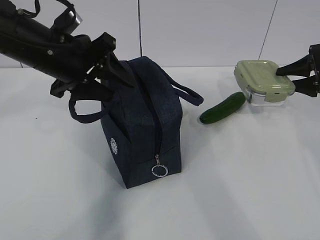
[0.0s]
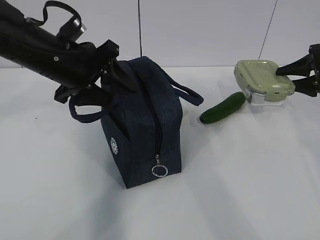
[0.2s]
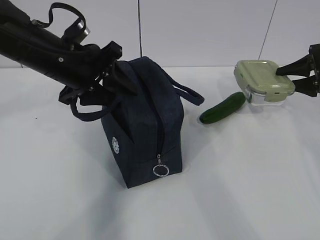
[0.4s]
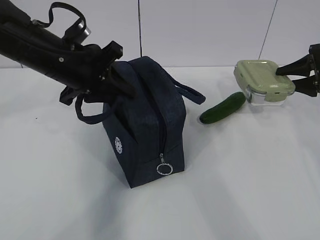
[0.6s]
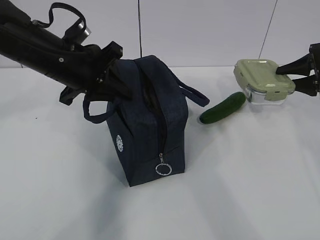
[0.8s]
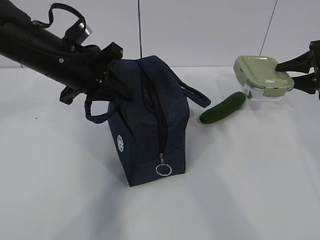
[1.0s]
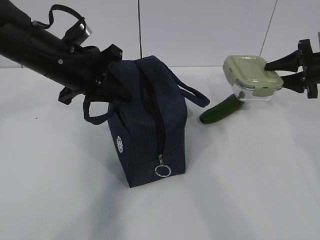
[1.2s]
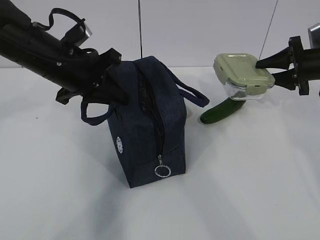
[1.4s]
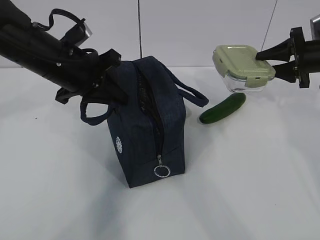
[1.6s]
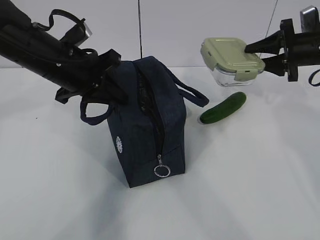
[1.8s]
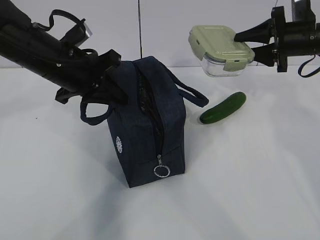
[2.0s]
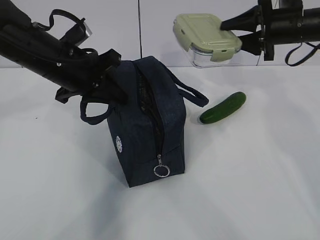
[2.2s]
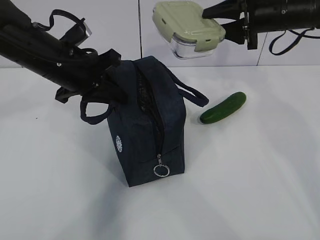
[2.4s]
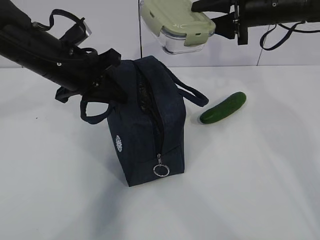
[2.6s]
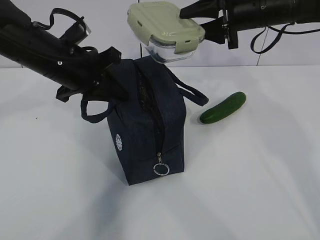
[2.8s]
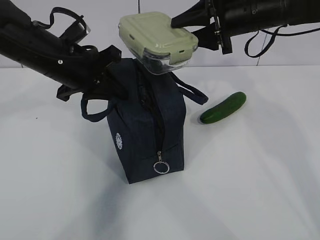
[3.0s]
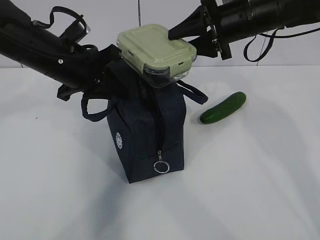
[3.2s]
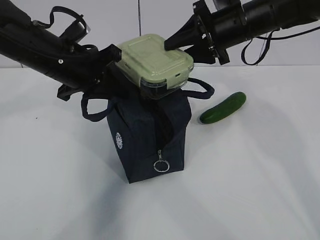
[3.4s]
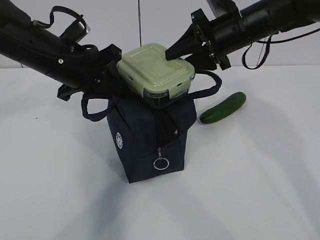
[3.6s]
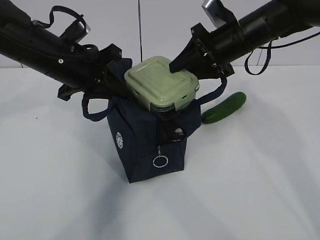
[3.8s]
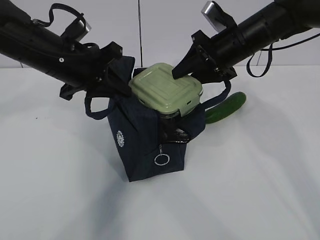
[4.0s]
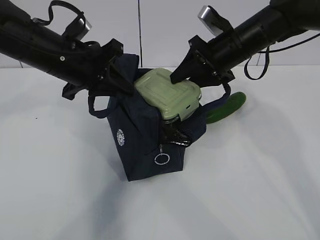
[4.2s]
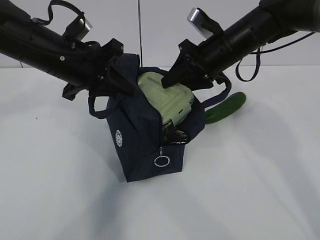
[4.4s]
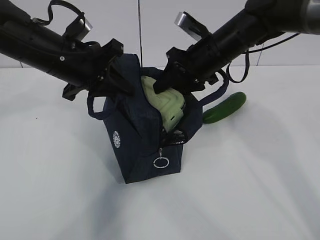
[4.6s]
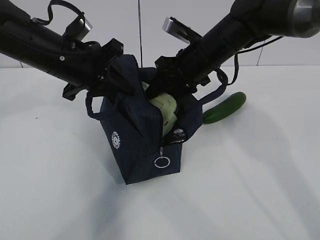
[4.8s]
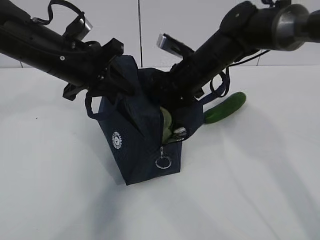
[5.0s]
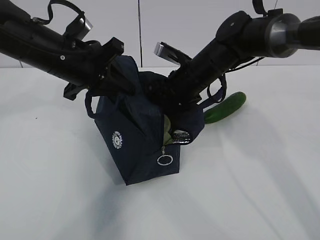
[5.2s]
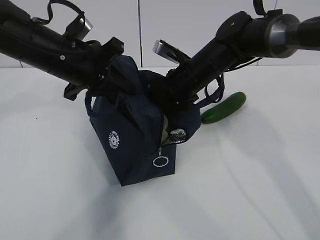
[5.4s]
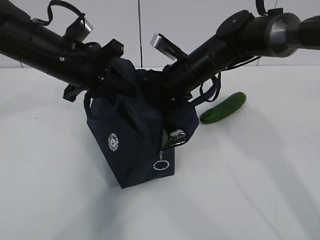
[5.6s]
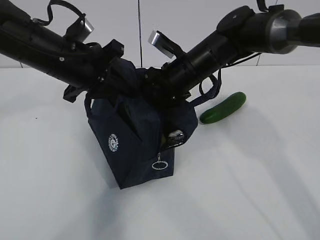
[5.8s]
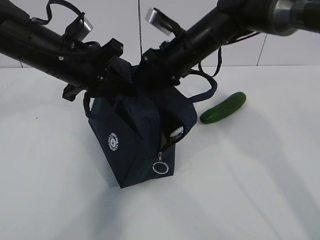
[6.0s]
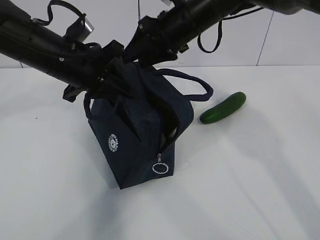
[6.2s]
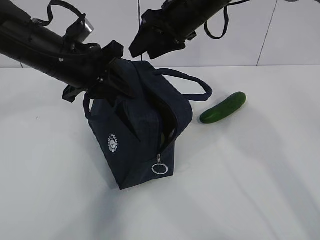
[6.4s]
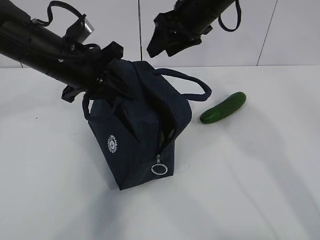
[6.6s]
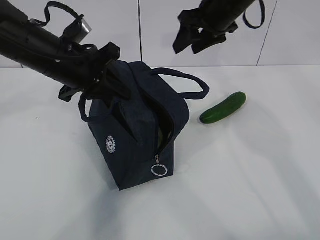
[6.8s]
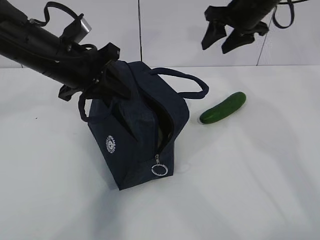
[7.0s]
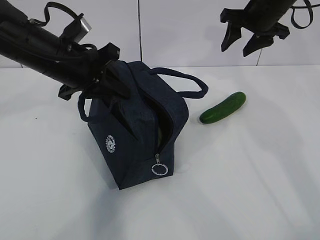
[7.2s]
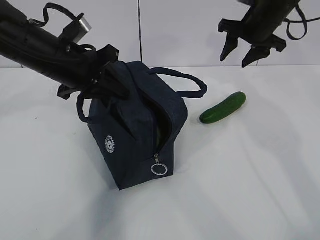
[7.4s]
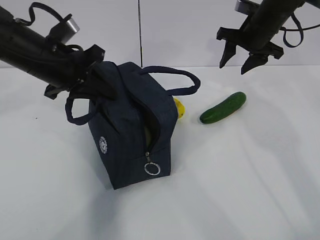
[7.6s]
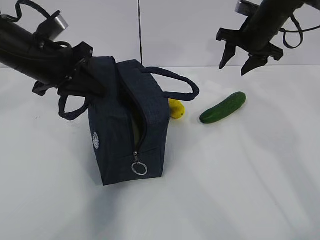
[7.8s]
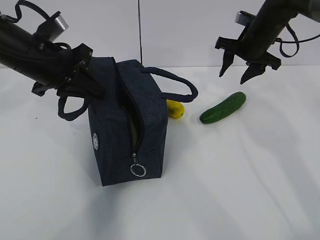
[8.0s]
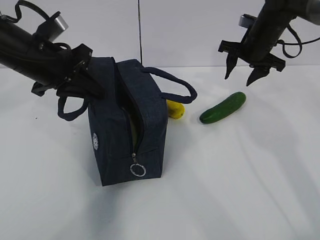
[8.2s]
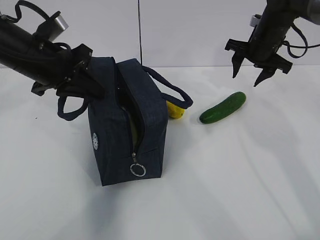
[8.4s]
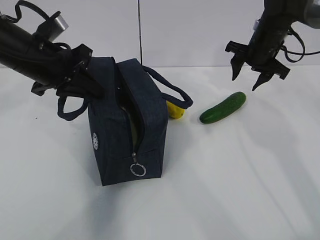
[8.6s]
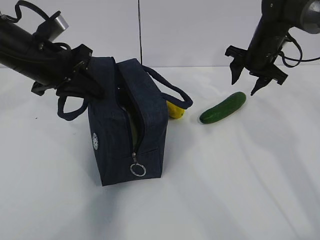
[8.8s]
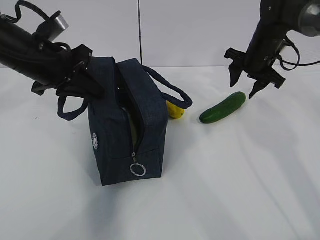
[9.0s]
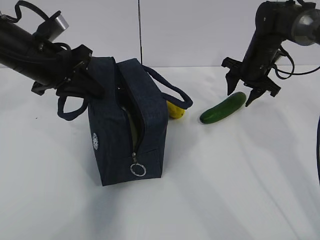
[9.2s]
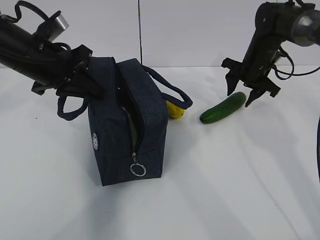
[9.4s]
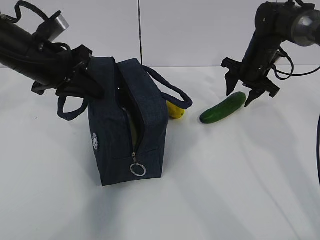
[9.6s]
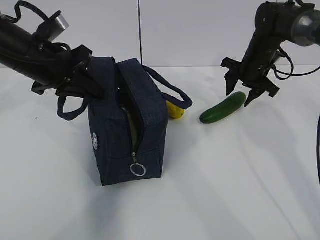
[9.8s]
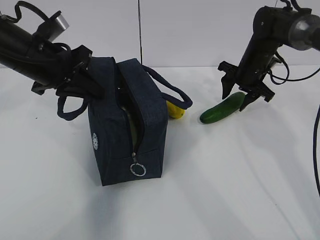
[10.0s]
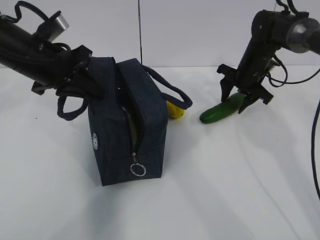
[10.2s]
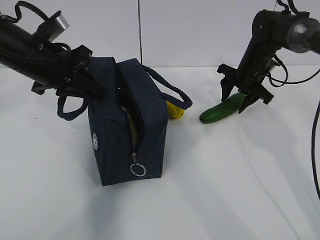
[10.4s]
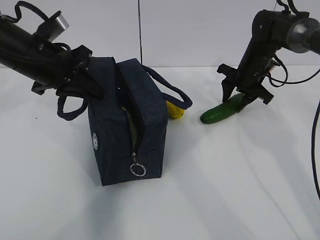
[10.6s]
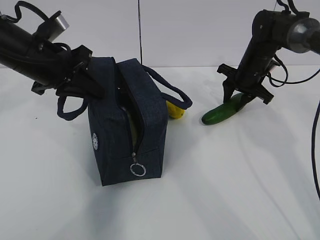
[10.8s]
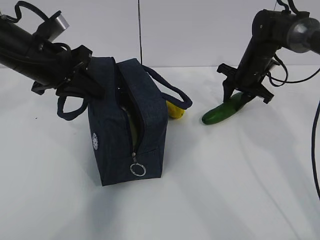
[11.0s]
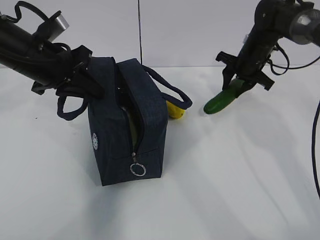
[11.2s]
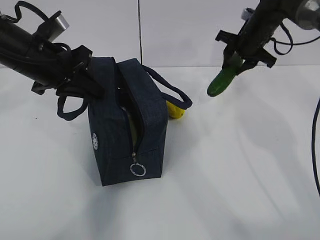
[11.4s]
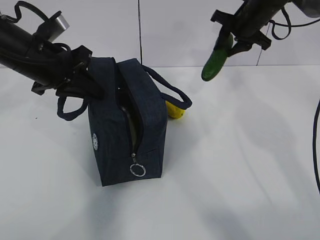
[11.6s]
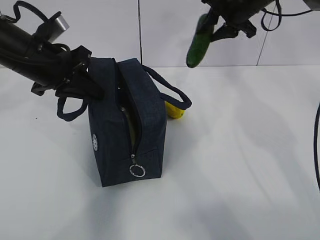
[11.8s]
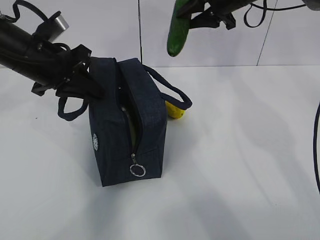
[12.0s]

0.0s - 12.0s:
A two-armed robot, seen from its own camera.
Step, 0.8s - 4.8s: Grab the cucumber with your right hand.
Step, 5.0s - 9.4s: Place it into the bag with your right hand.
0.0s - 1.6s: The left gripper closes up. The right gripper goes approximately 5 cm to the left.
1.6s - 3.0s: The right gripper travels to the left and upward by roughly 20 cm.
3.0s - 4.4s: The right gripper changes place by approximately 5 cm.
4.4s - 6.0s: The right gripper travels to the left by about 5 cm.
6.0s - 7.6s: The right gripper travels to the right and forward by some 15 cm.
7.6s - 9.0s: The right gripper heads downward, covering approximately 5 cm.
9.0s - 10.4s: There are only small adjustments of the grippers.
10.4s - 12.0s: The right gripper travels upward by some 15 cm.

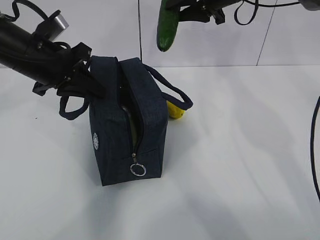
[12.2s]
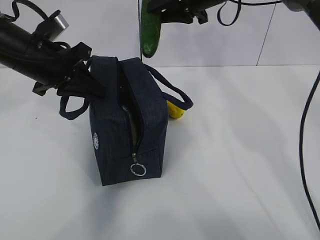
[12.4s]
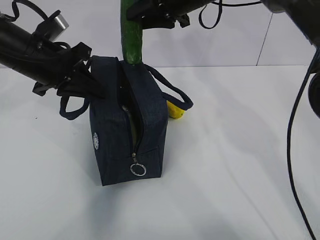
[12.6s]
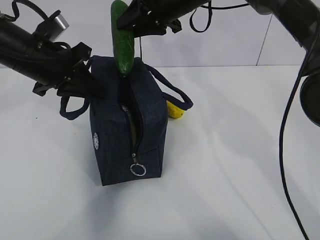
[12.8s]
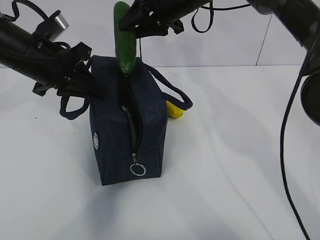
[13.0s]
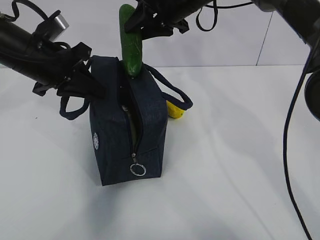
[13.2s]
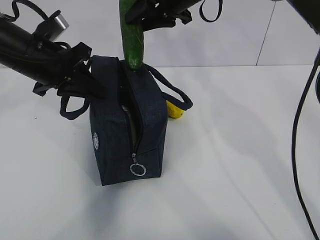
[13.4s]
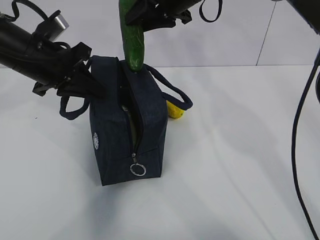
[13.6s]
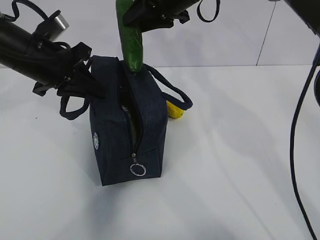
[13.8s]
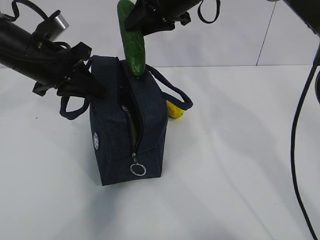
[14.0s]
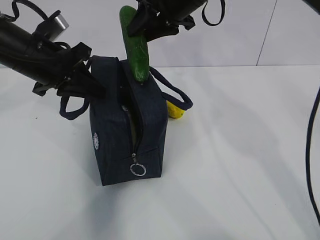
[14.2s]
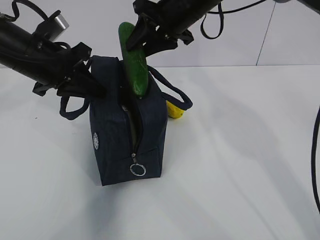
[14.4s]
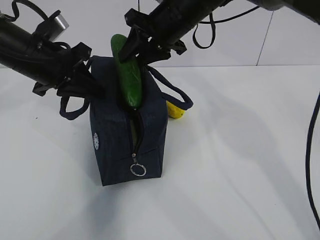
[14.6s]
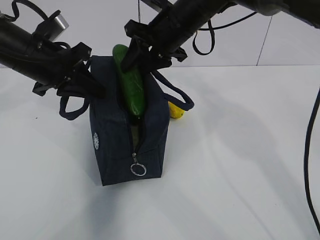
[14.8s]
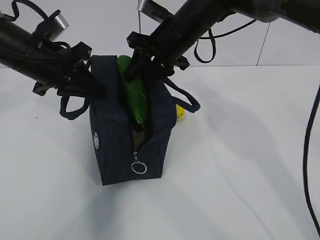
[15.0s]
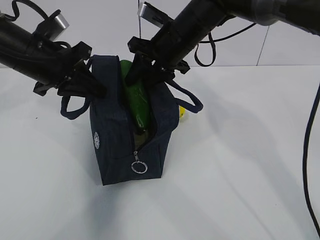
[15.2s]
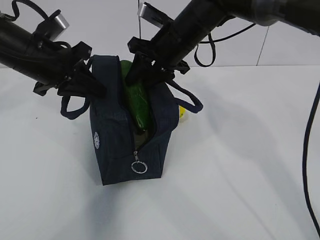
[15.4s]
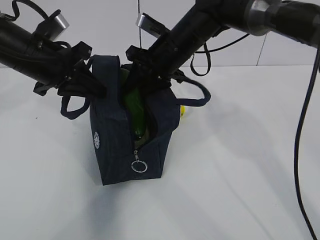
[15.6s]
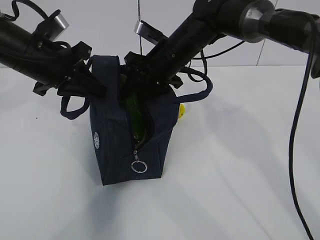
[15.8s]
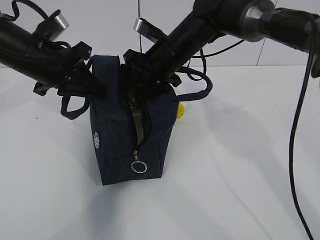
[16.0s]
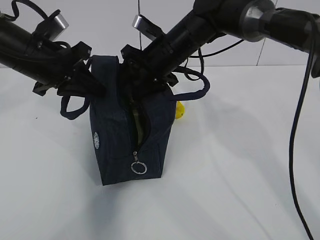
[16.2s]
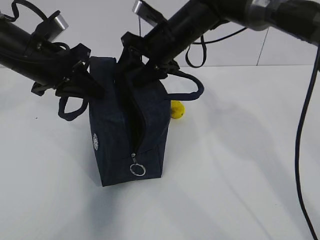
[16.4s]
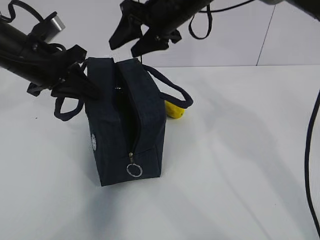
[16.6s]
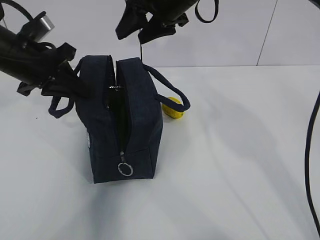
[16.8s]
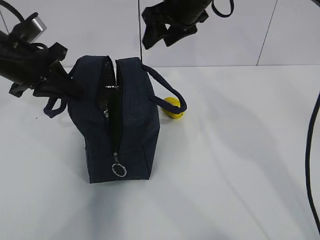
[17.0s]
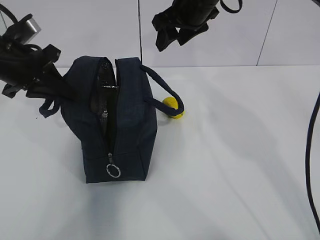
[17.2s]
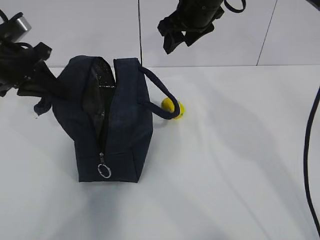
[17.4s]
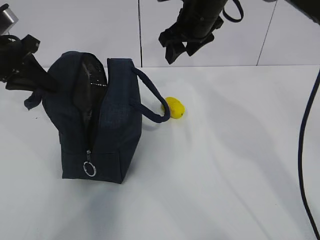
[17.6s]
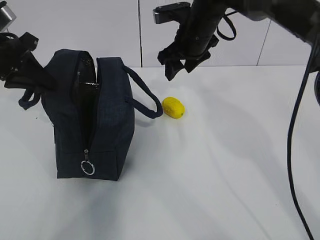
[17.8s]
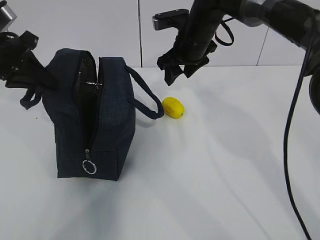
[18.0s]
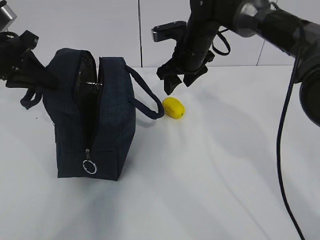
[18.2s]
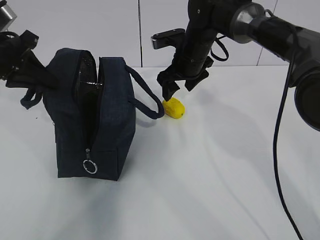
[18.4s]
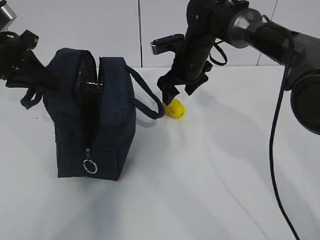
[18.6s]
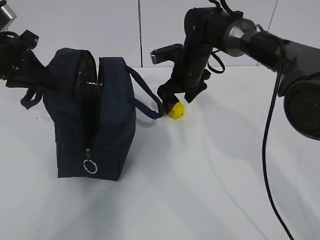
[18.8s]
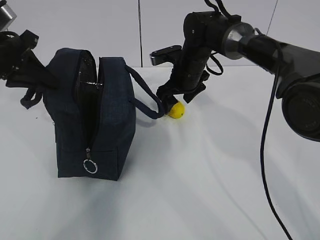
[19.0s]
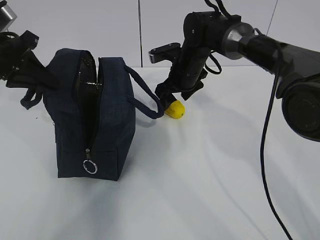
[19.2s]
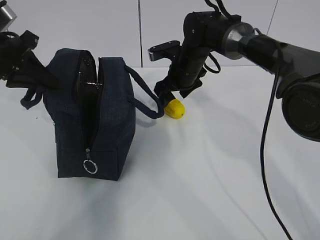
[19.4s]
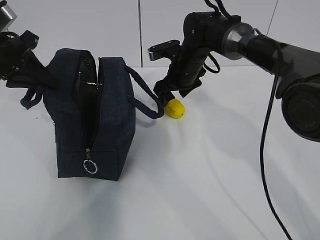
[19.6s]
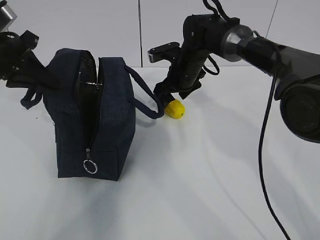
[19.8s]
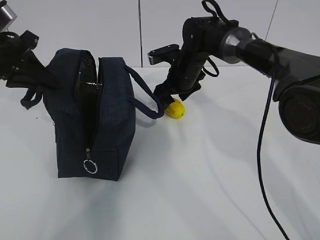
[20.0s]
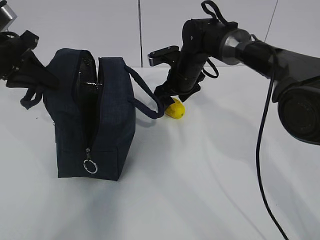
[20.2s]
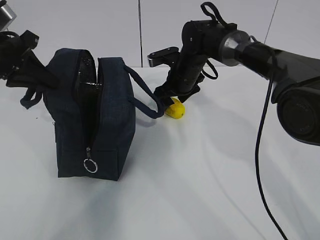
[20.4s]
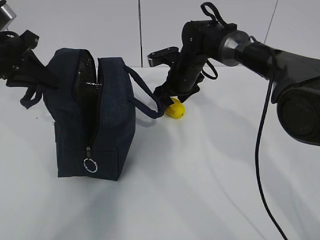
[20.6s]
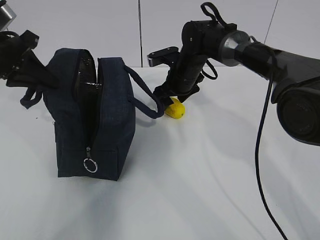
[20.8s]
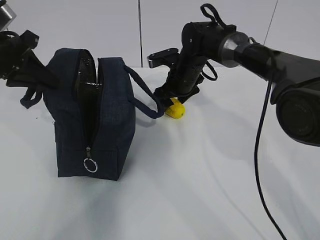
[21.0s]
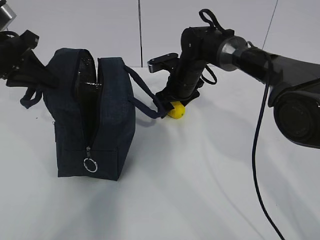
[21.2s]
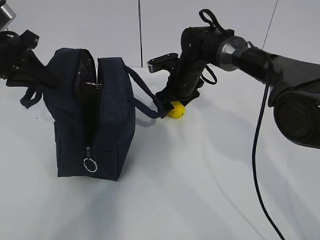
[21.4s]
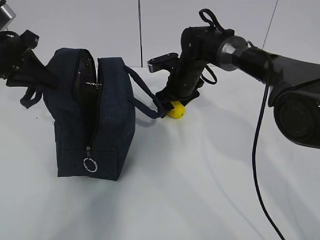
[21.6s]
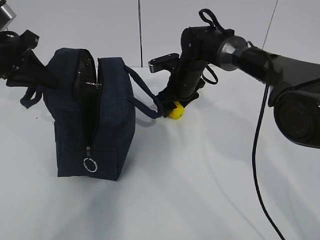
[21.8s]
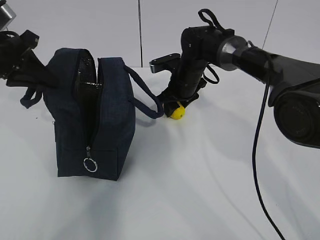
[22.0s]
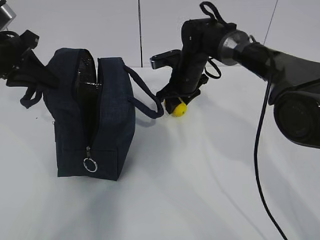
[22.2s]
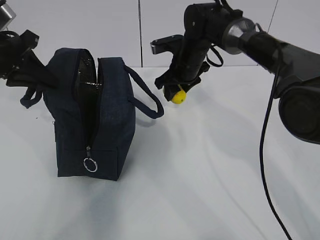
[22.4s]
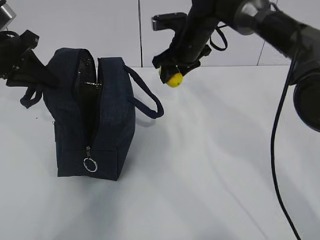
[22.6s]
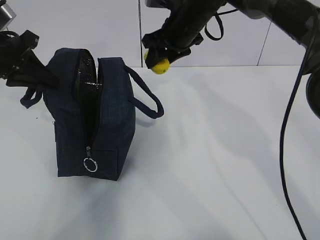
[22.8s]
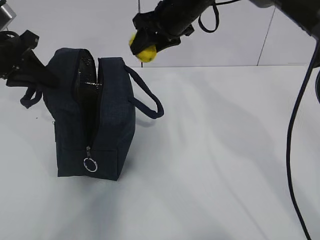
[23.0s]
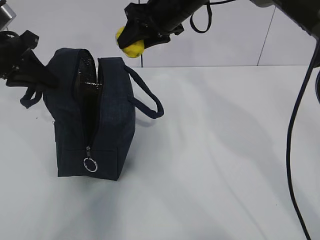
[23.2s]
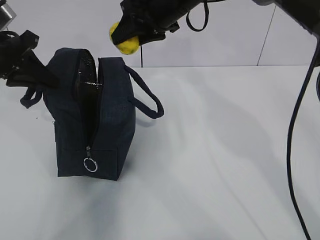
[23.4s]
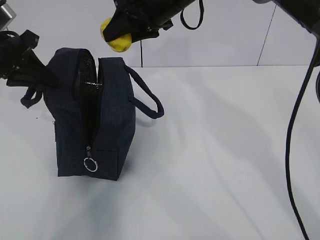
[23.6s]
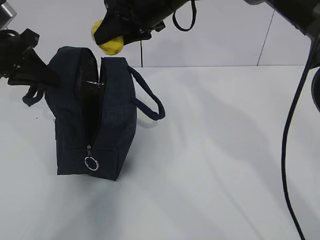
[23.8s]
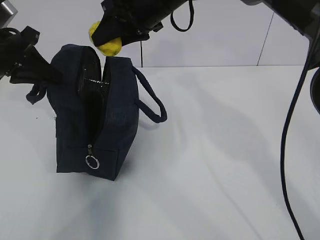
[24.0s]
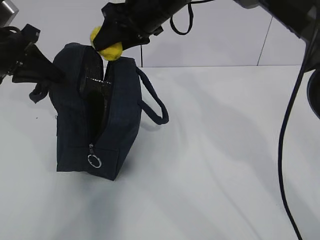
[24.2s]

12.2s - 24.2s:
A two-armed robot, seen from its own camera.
Step, 12.2s - 14.2s: Grab the lemon with your right hand.
Step, 14.4s - 17.8s: Secure the lunch bag with your left hand.
Step, 18.2s - 19.6s: Grab the lunch bag with your right hand.
12.2s - 13.8s: The right gripper goes approximately 10 cm to the left.
13.8s - 15.2s: The right gripper goes some 5 cm downward.
15.2s - 16.6s: The grippers move only a little.
16.6s - 18.2s: The left gripper moves to the left, approximately 5 cm; the right gripper shifts roughly 10 cm downward.
18.2s - 19.8s: The right gripper travels downward by roughly 5 cm.
19.8s - 21.2s: The grippers move only a little.
21.2s - 22.6s: The right gripper goes about 10 cm upward, and closes.
22.6s - 24.2s: The right gripper travels upward, to the left and backward by approximately 15 cm.
